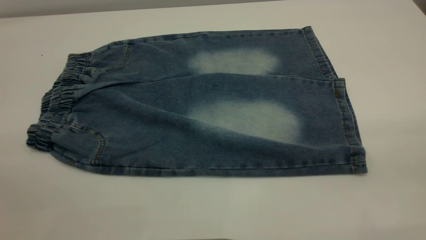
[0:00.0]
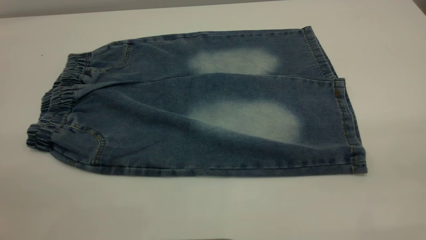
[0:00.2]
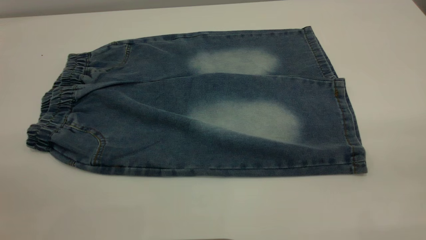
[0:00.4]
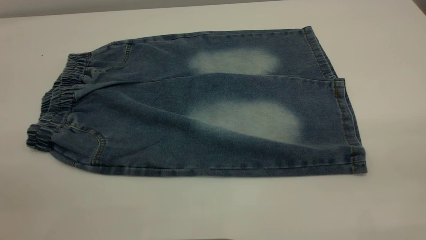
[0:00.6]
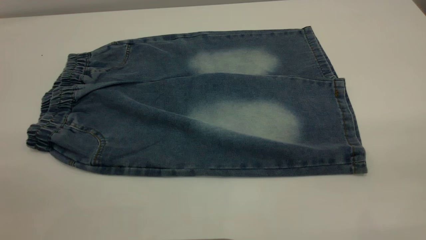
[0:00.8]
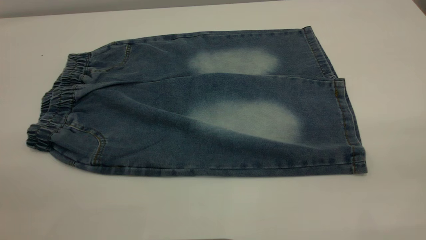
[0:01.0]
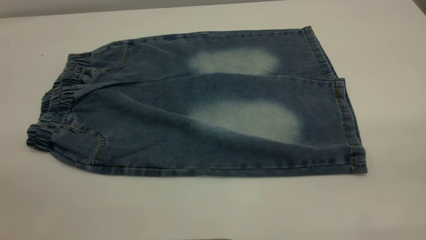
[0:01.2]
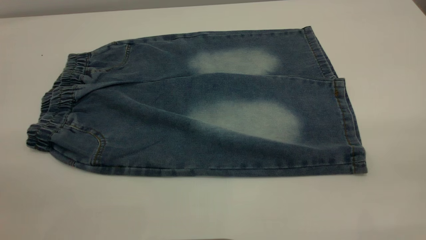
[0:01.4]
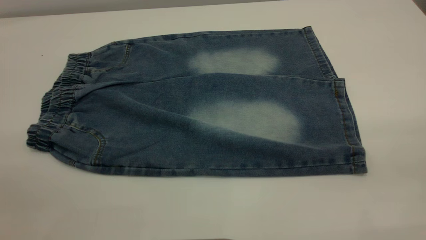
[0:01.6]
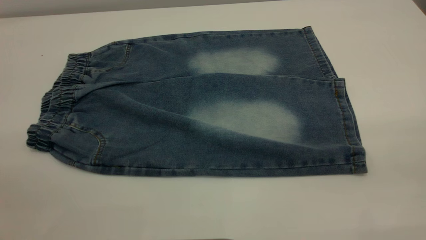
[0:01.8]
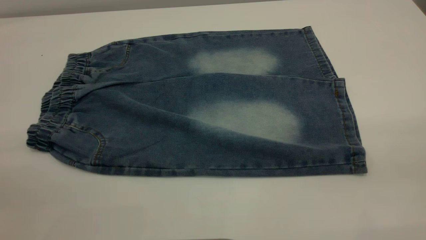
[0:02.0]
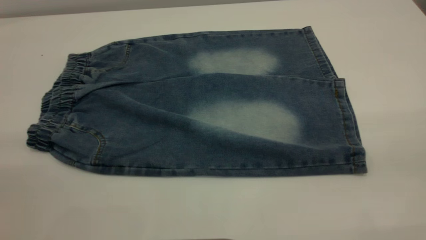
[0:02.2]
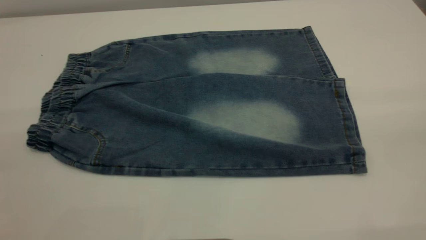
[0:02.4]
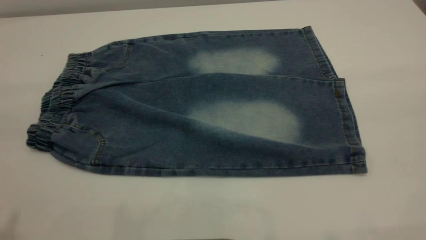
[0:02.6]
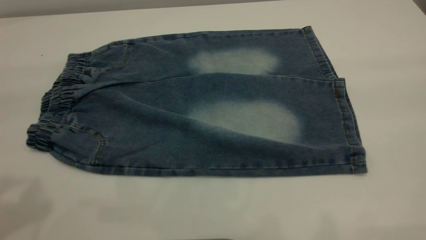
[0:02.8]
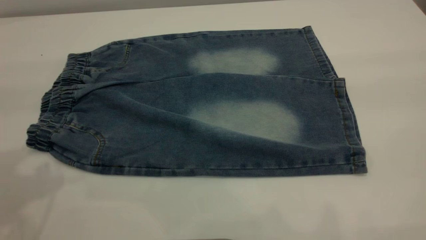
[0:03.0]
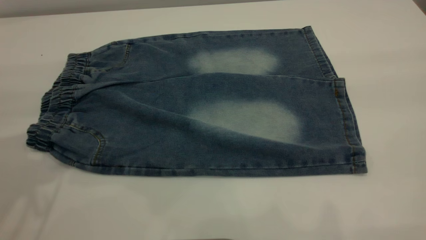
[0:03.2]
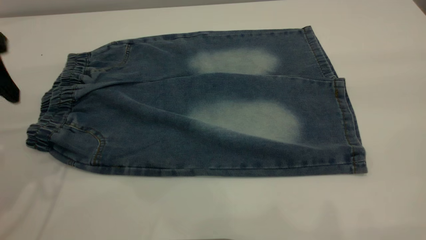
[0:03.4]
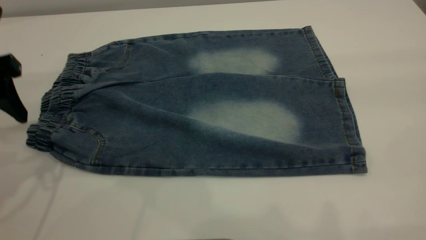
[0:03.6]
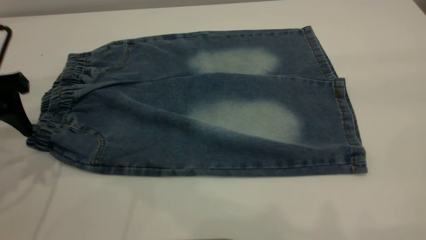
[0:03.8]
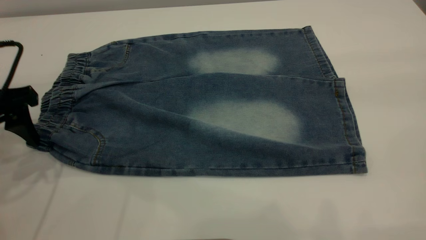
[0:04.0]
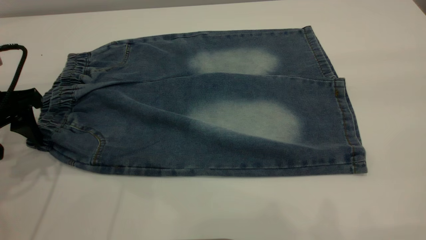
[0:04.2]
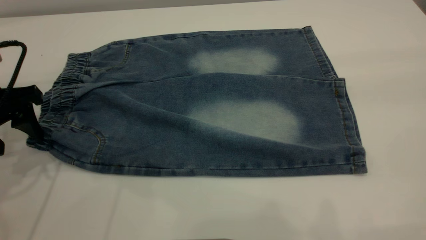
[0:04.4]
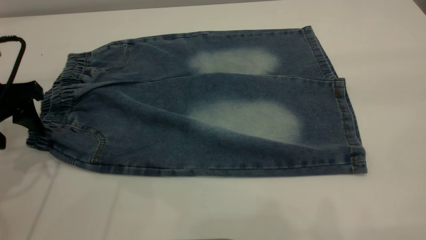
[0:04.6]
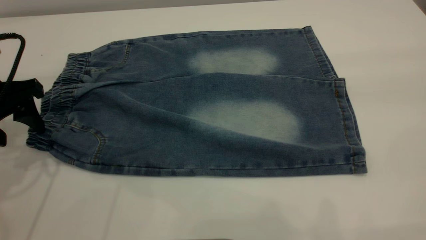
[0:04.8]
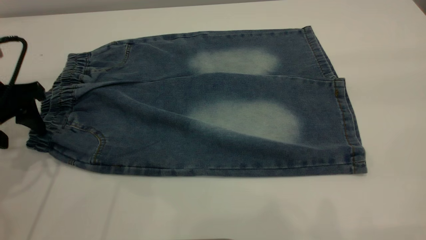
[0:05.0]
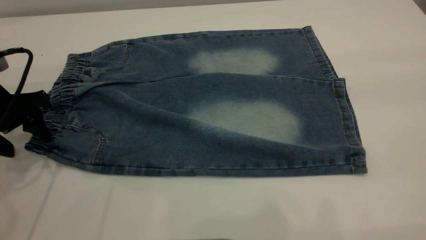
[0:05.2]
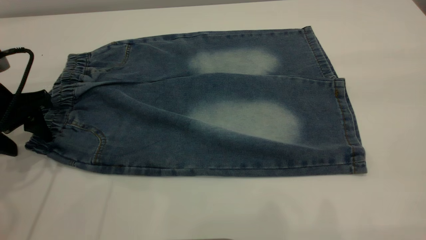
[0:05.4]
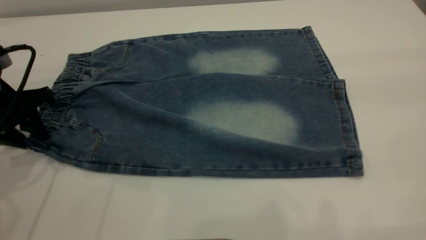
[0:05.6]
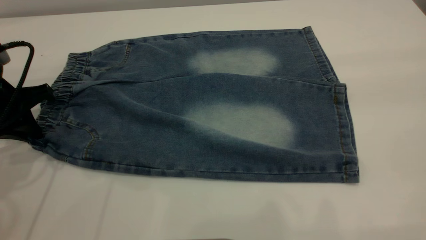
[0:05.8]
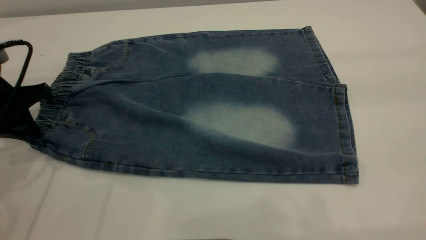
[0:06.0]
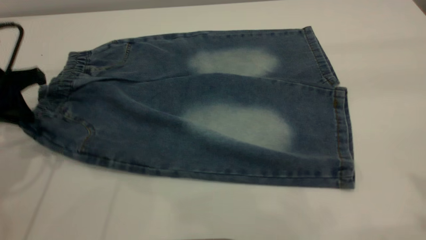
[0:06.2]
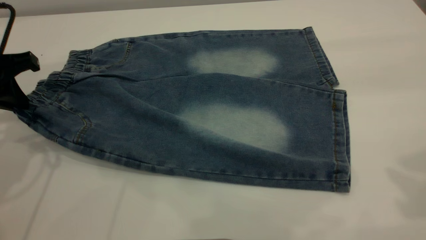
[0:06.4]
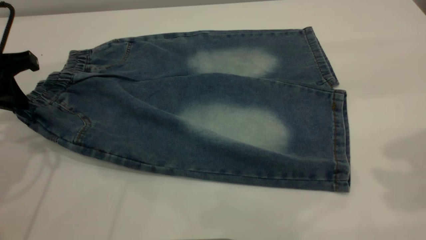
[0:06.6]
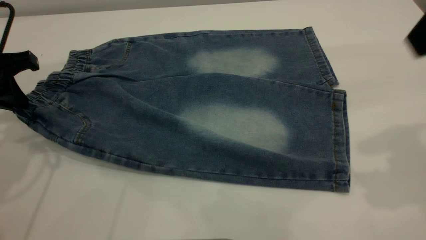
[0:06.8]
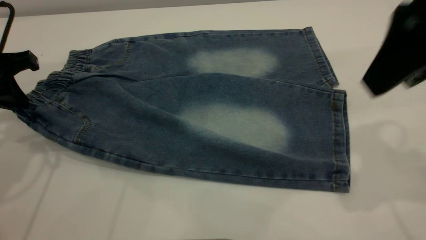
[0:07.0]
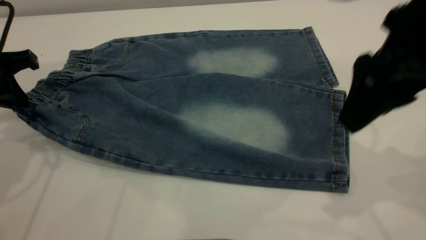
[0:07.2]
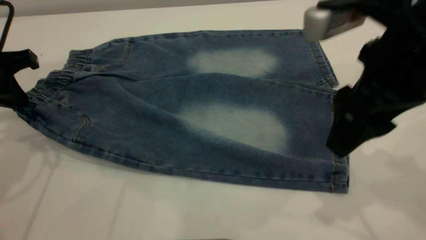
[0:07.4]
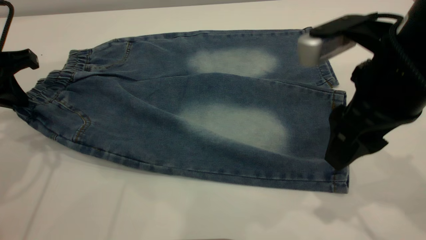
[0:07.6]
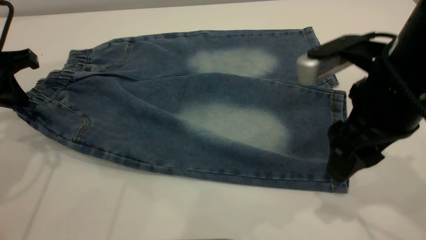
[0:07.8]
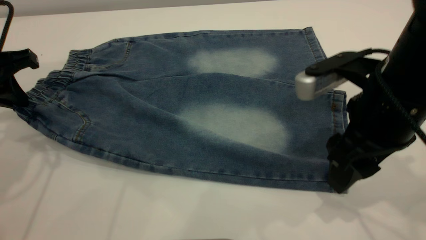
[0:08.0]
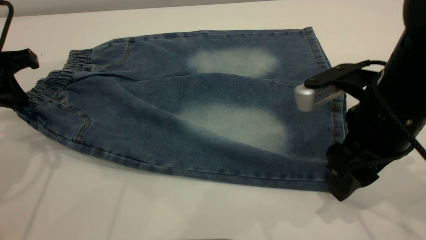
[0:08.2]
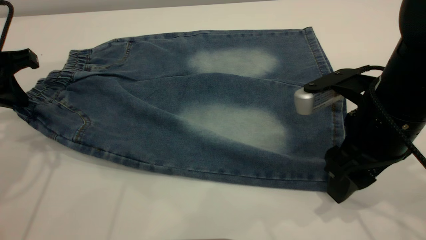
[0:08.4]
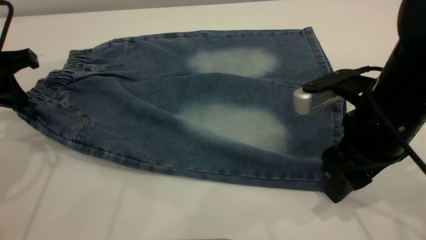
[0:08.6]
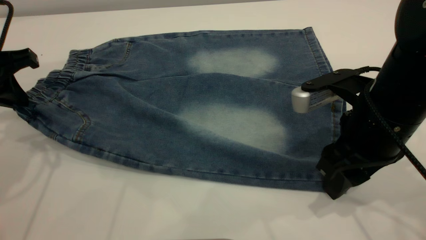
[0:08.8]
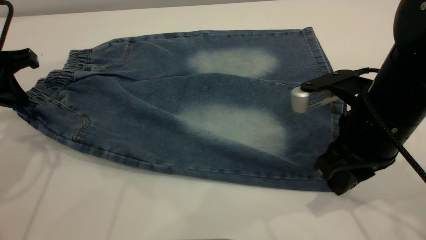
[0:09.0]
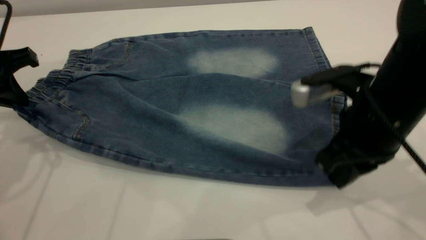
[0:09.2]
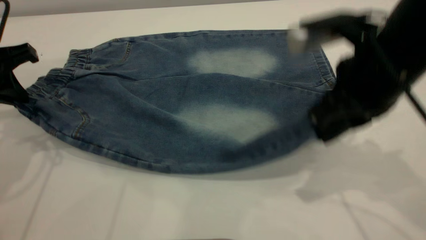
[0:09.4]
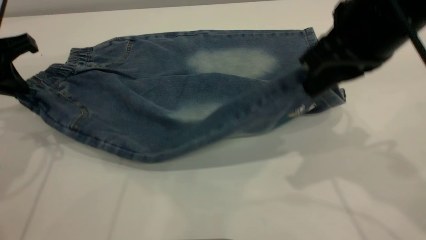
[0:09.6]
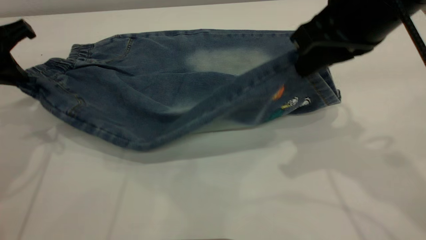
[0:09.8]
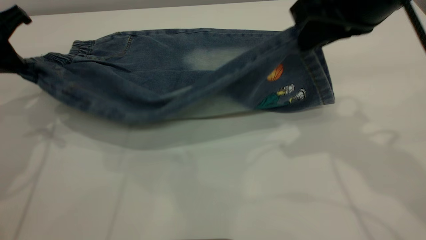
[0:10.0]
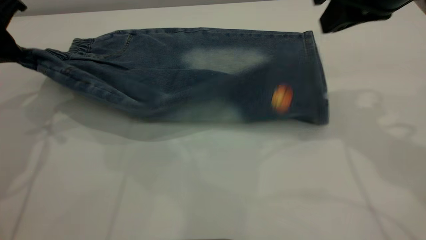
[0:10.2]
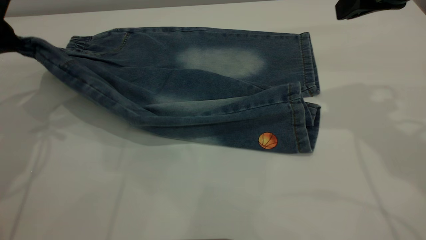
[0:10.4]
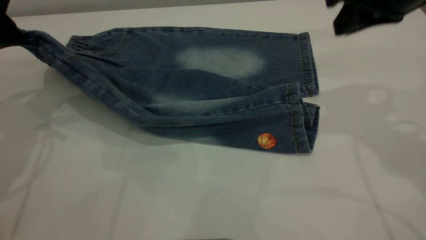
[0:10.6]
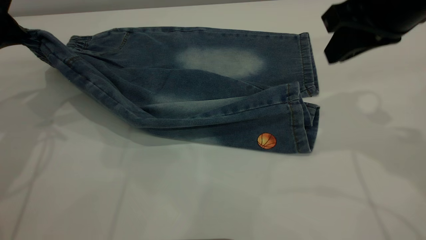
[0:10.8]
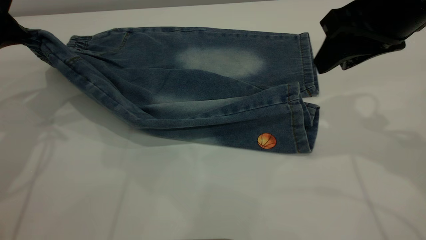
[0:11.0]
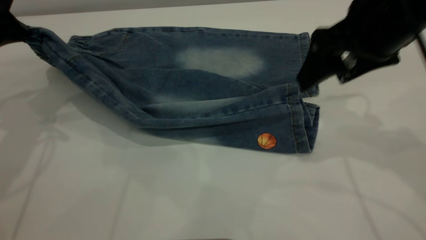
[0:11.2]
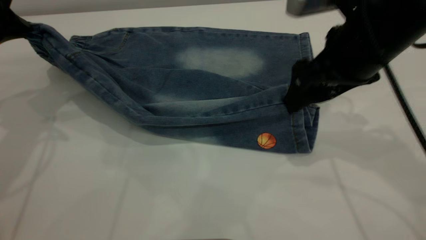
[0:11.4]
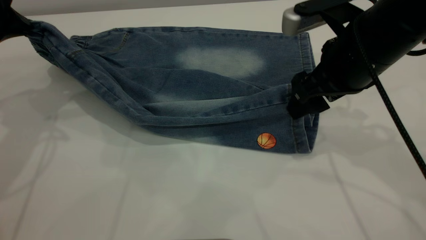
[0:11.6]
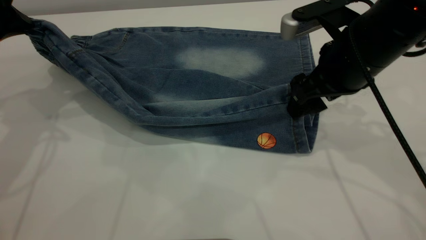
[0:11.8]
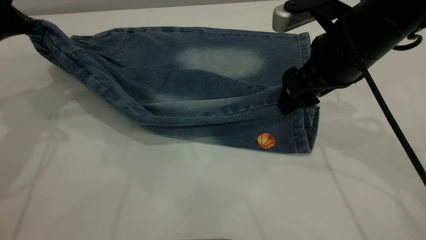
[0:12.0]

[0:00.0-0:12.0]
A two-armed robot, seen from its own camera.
0:00.0 to 0:01.6: Both grippers stay about where they are.
0:03.0 to 0:04.4: The left gripper shifts approximately 15 cm downward and forward.
0:04.4 to 0:06.0: The left gripper closes up.
0:06.0 to 0:07.6: The right gripper moves downward, forward and to the left, about 25 cm.
0:07.6 to 0:09.0: The right gripper heads downward, covering some 5 cm, and closes up.
0:09.0 to 0:10.4: The right gripper travels upward and forward by roughly 15 cm.
0:10.4 to 0:12.0: The right gripper goes roughly 10 cm downward, and opens.

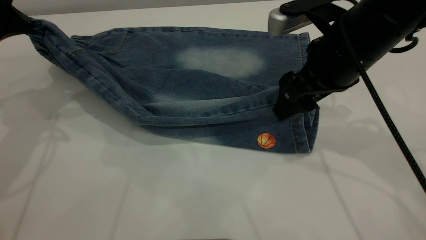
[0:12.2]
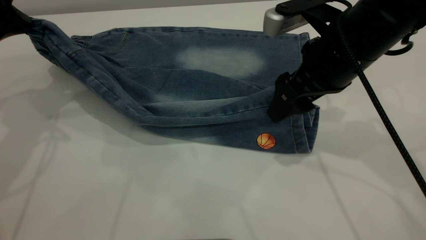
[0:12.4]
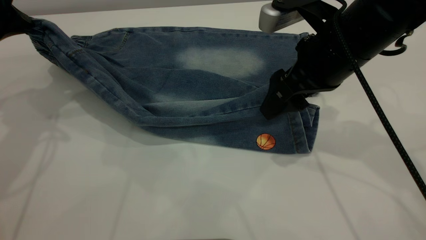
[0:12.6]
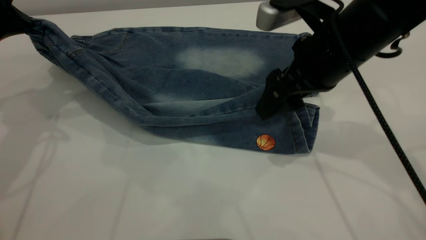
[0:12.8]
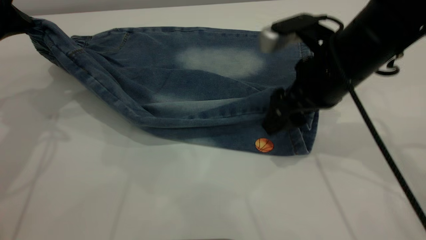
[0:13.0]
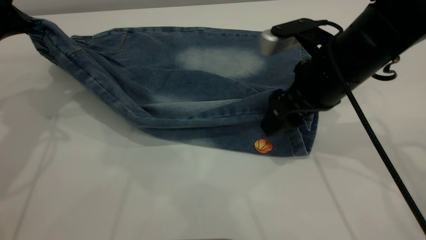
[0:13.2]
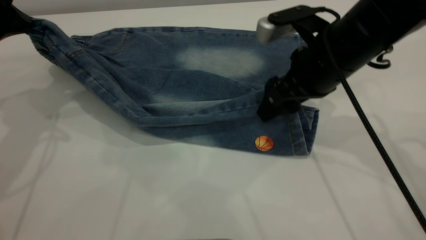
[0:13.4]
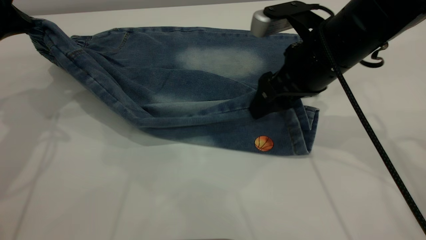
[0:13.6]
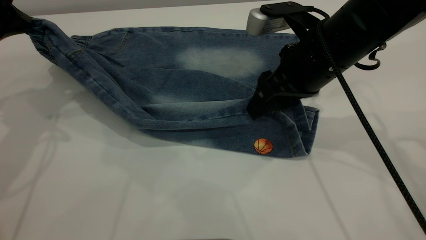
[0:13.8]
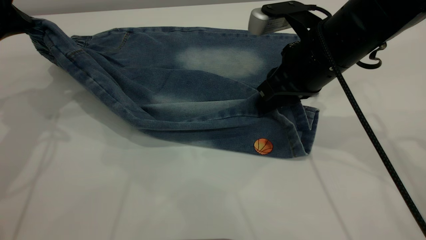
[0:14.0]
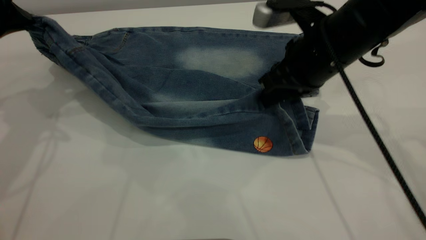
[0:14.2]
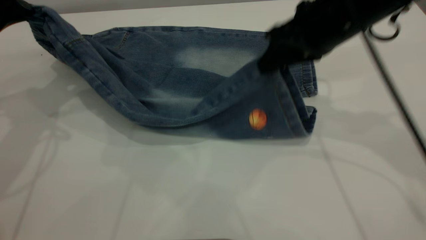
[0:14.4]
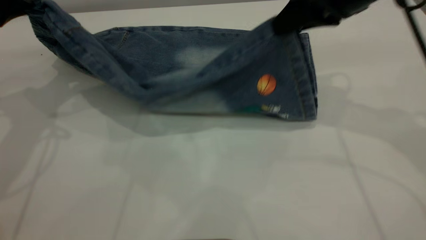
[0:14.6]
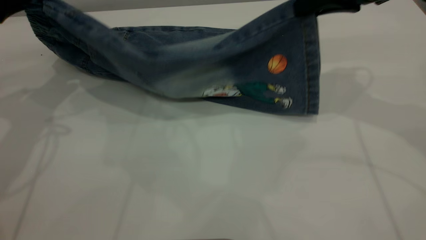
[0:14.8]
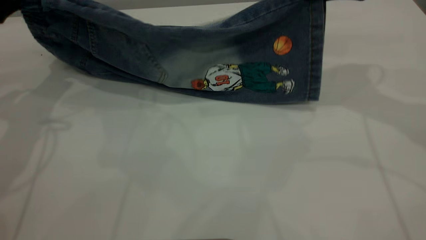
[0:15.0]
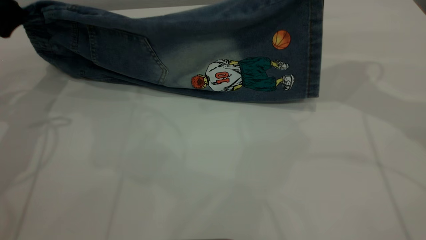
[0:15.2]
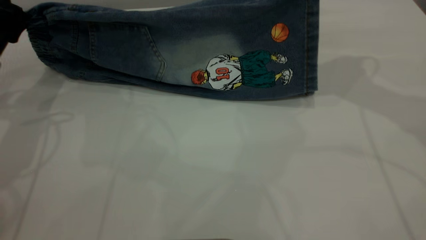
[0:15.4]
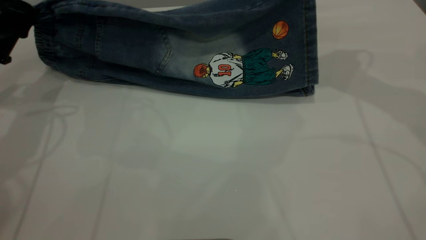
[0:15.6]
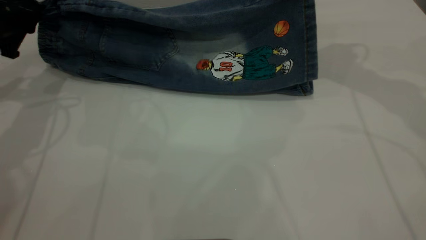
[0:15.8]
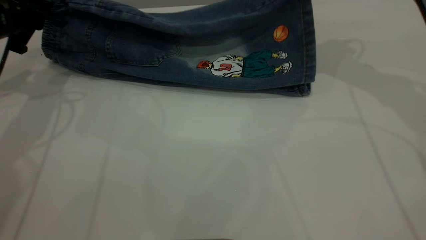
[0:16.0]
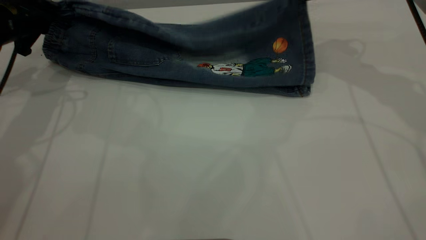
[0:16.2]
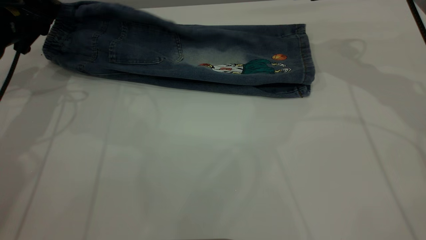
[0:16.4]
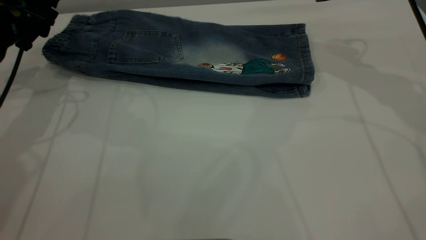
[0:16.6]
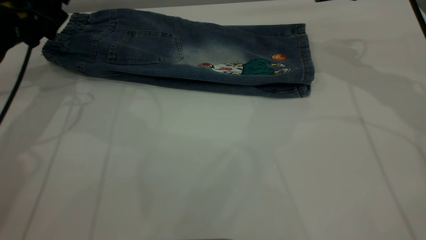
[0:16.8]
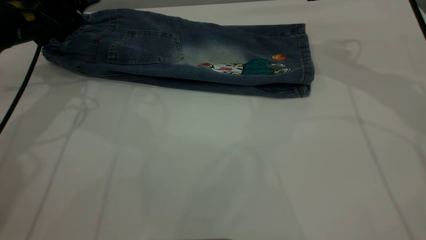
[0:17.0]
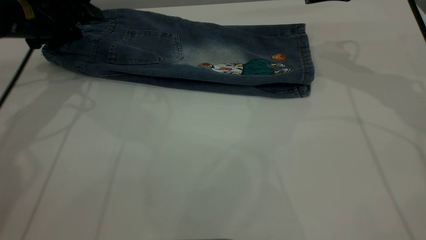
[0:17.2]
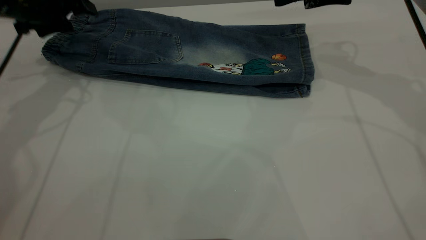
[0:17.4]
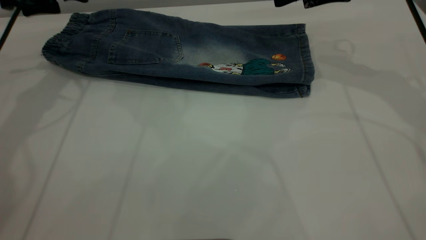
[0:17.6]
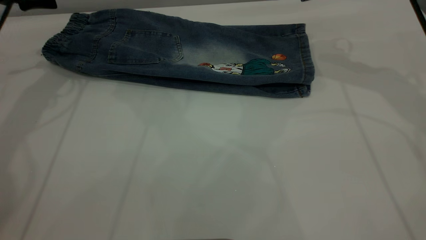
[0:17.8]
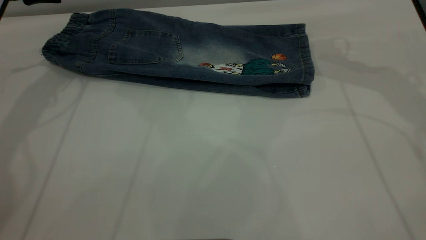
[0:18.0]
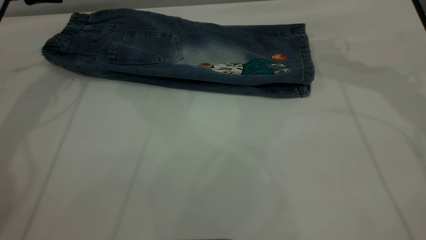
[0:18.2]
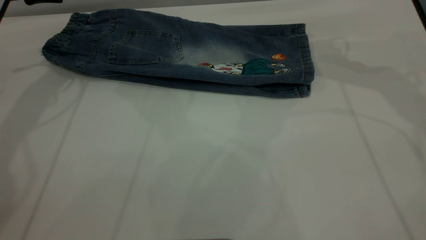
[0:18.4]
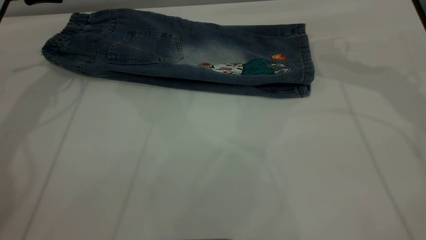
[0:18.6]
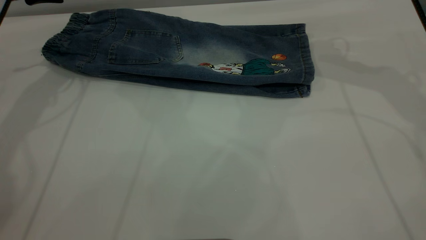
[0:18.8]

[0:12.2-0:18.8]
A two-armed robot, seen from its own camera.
Step, 0:12.2 to 0:16.6: Fold the bottom of the pants upward.
0:12.2 to 0:13.8: The right gripper closes.
0:13.8 to 0:15.4: The right gripper moves upward, to the right and forward, some 15 cm, and closes up.
0:15.4 to 0:17.2: The right gripper shifts by roughly 5 cm, and opens its fingers. Meanwhile the left gripper heads forward, covering roughly 5 cm, and opens its fingers.
0:17.2 to 0:18.8: The left gripper moves upward, approximately 5 cm.
